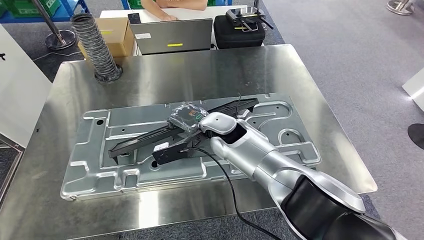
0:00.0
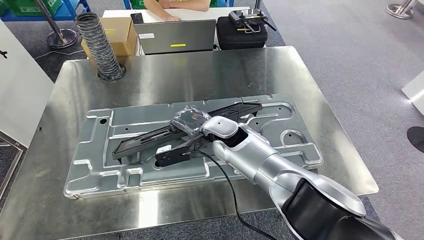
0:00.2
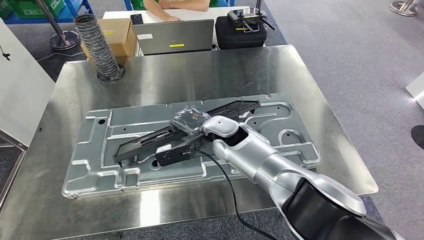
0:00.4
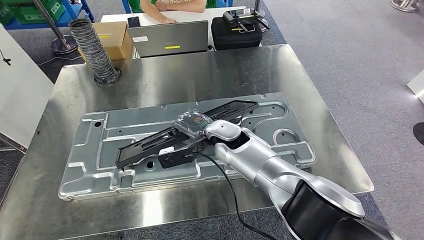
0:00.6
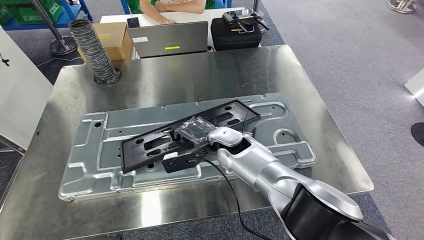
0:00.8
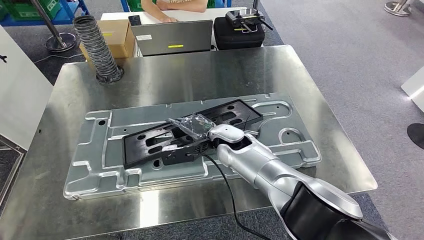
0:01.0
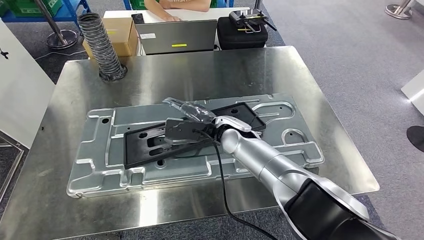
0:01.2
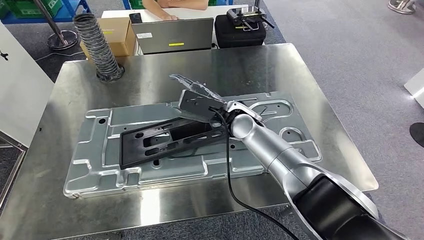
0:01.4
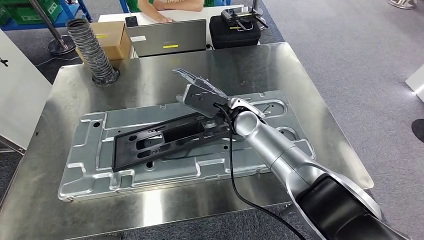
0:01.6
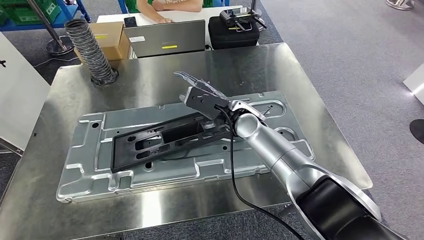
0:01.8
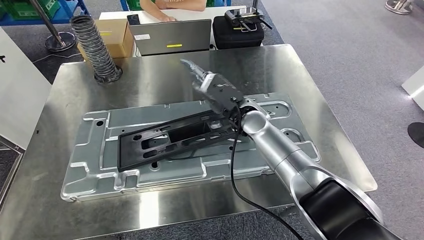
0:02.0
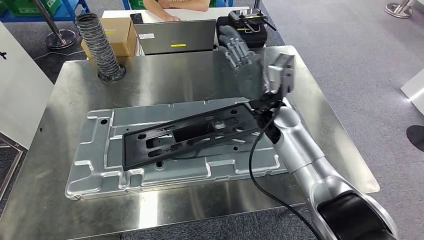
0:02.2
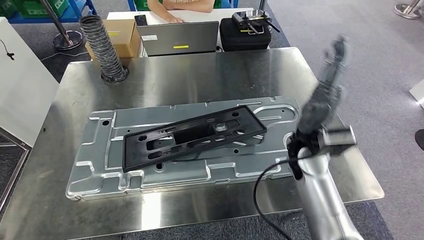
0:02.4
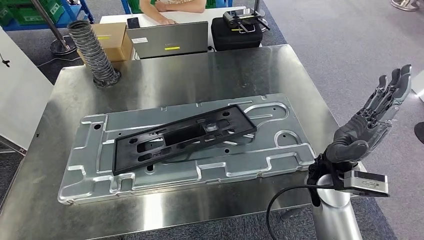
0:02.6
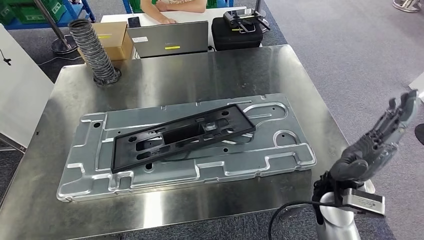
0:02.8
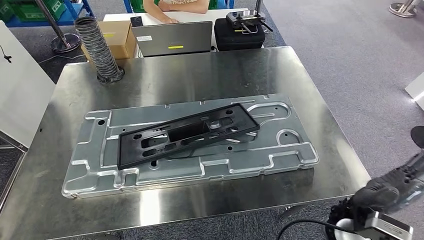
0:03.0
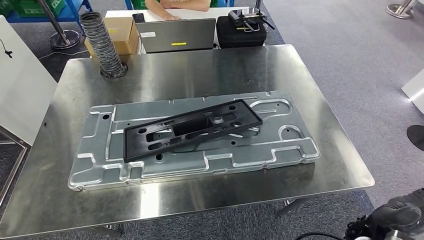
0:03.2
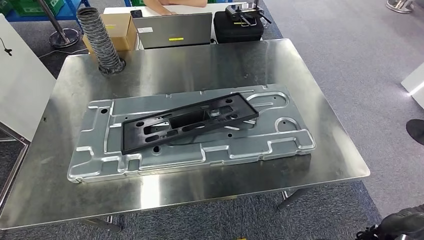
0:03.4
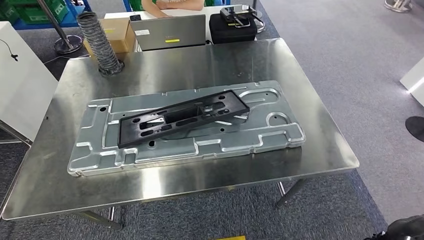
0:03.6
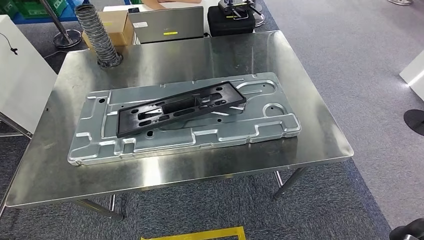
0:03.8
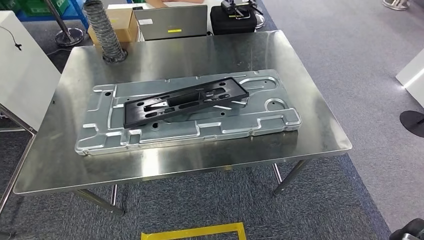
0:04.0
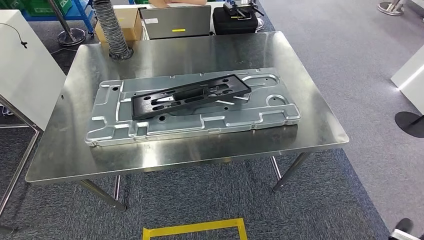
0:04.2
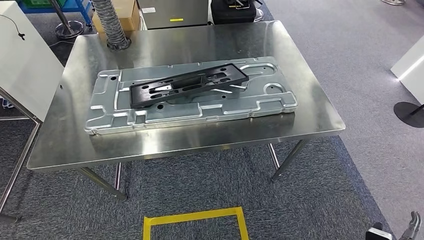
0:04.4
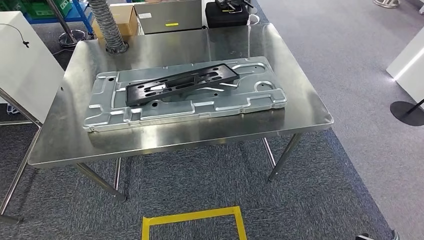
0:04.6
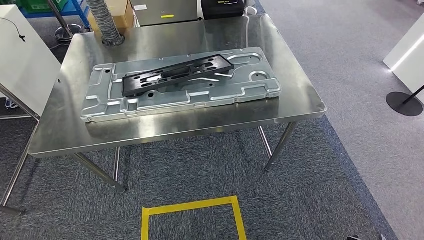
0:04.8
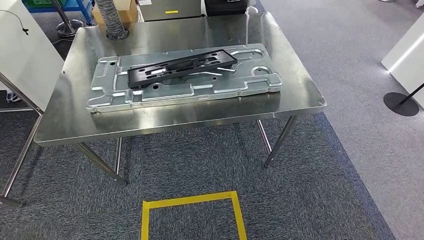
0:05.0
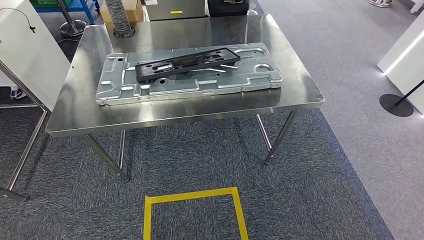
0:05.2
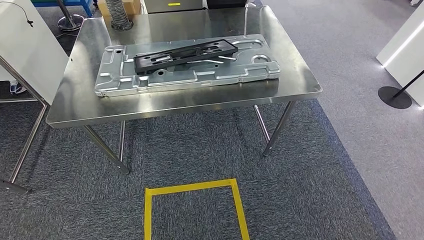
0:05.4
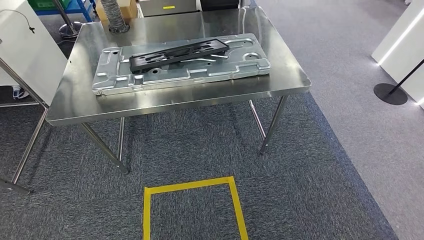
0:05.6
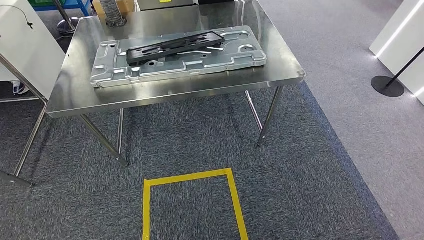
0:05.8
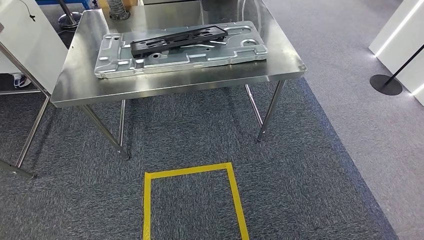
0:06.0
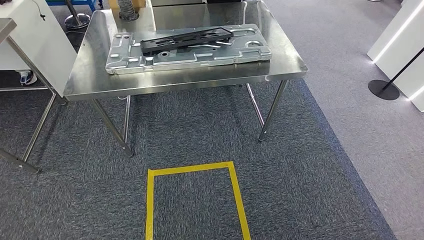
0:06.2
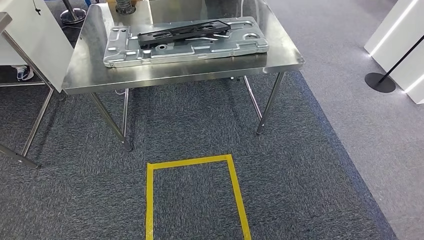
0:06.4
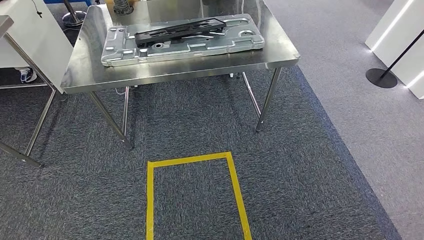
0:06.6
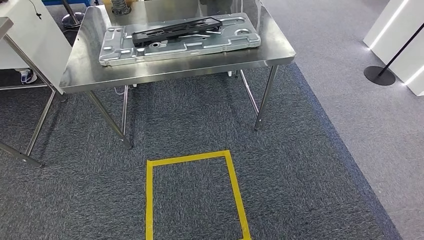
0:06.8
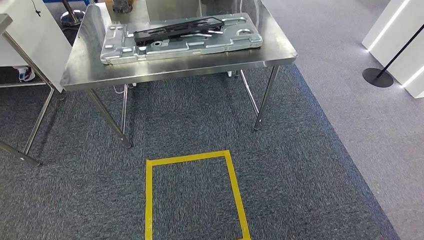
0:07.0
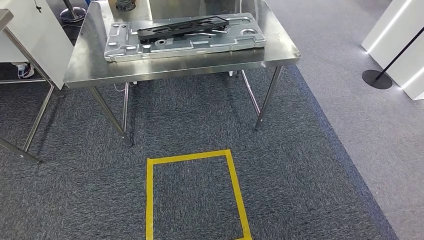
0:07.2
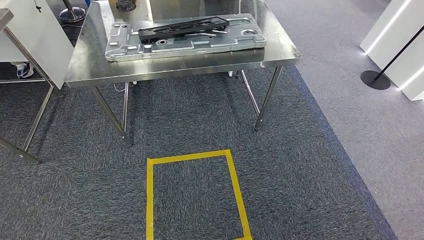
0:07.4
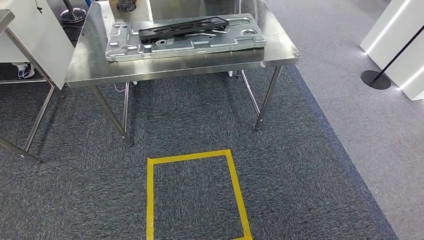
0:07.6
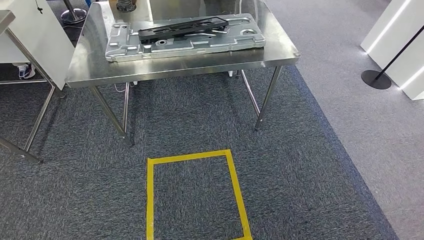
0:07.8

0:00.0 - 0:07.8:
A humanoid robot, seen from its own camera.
Step, 0:00.0 - 0:04.0: Insert the large material into the corresponding slot on the workbench.
Step, 0:04.2 - 0:07.8: Return to the initial position at the shelf.
0:06.2 - 0:07.8: The hands make only small movements.
